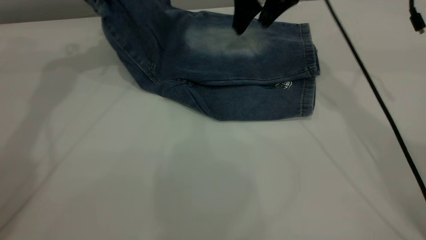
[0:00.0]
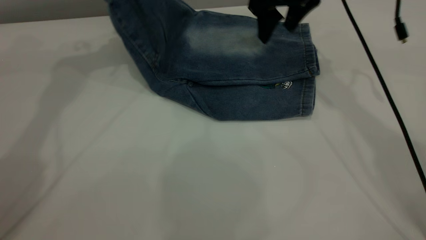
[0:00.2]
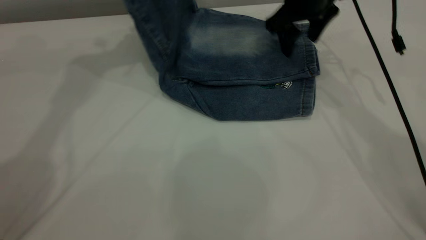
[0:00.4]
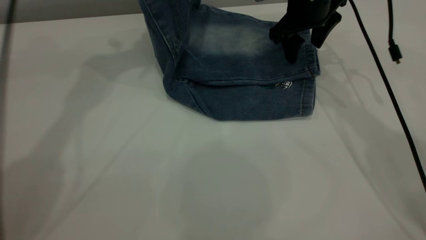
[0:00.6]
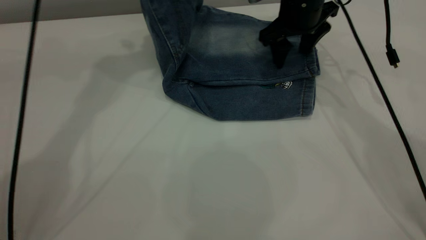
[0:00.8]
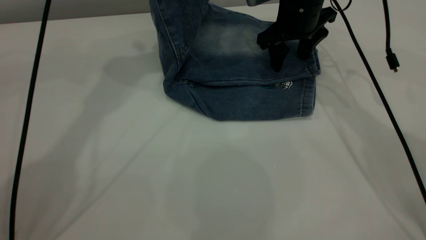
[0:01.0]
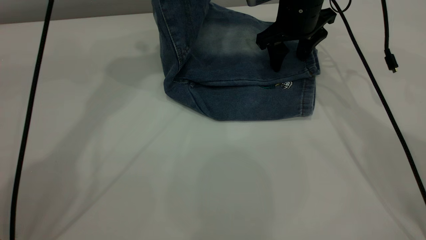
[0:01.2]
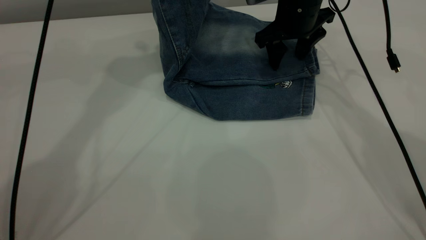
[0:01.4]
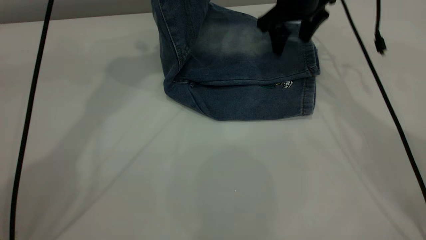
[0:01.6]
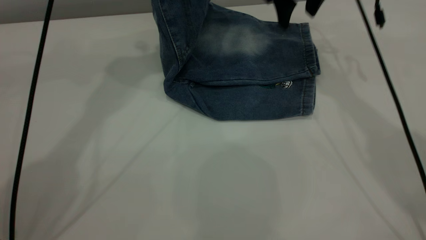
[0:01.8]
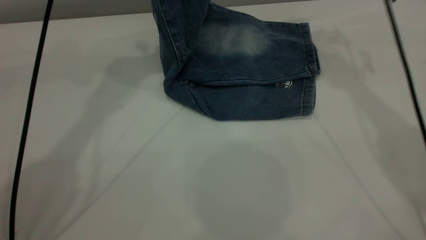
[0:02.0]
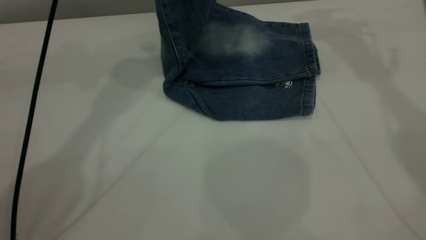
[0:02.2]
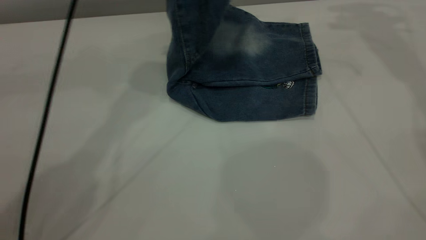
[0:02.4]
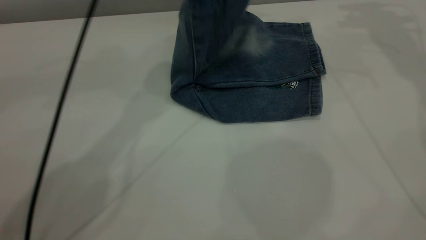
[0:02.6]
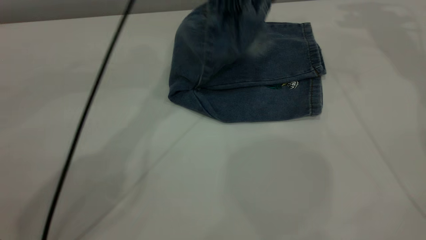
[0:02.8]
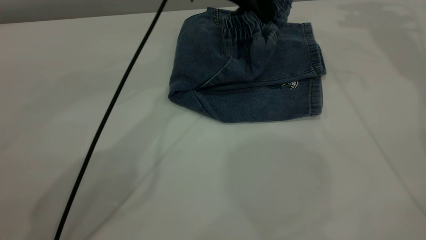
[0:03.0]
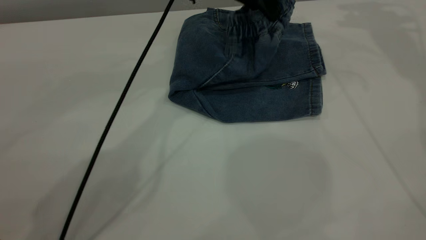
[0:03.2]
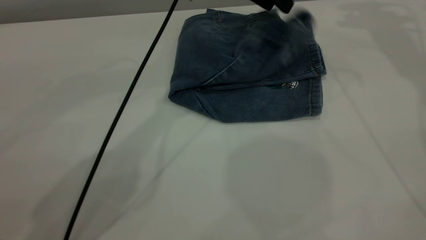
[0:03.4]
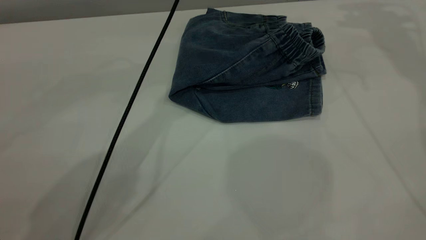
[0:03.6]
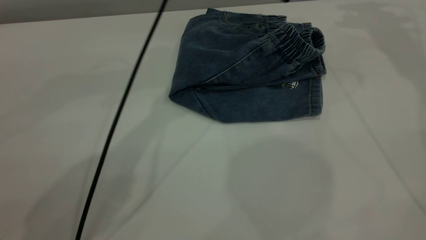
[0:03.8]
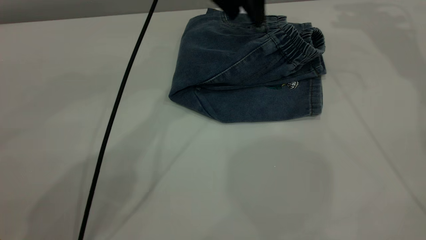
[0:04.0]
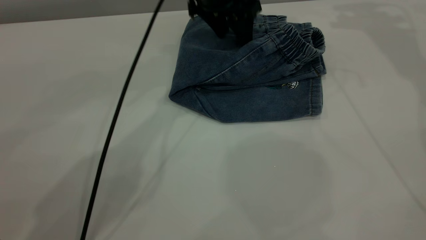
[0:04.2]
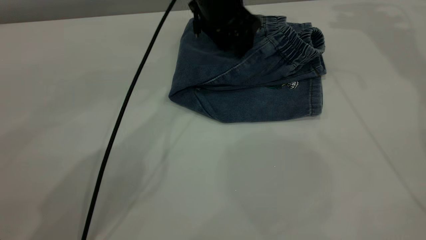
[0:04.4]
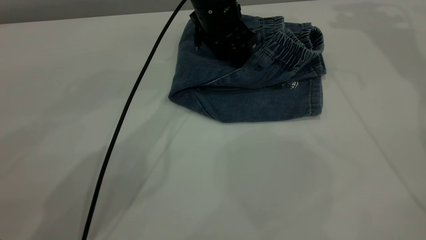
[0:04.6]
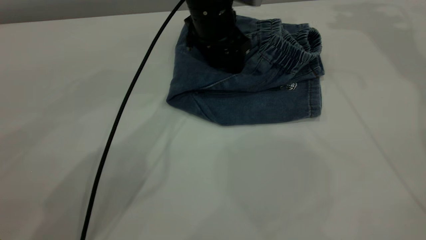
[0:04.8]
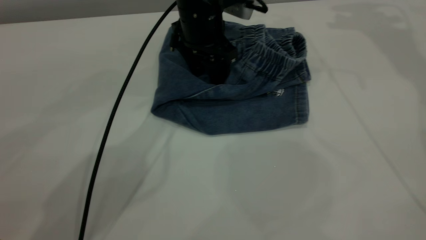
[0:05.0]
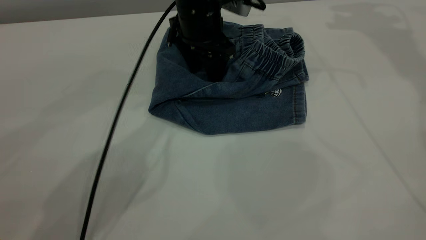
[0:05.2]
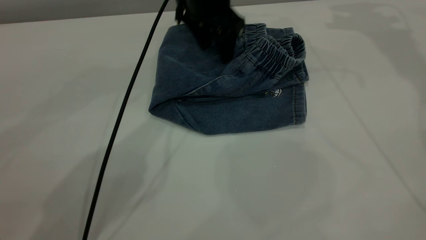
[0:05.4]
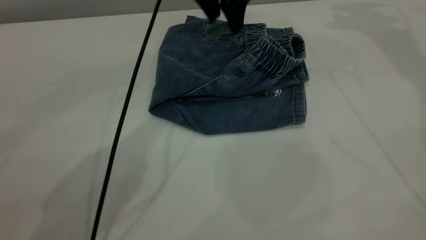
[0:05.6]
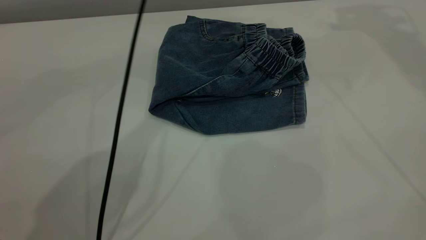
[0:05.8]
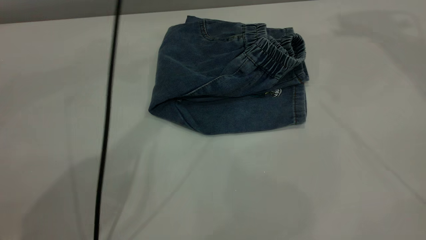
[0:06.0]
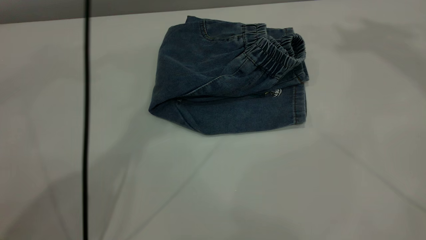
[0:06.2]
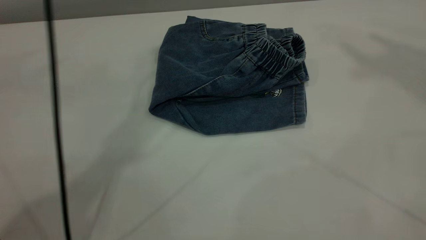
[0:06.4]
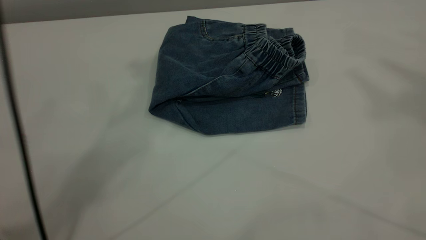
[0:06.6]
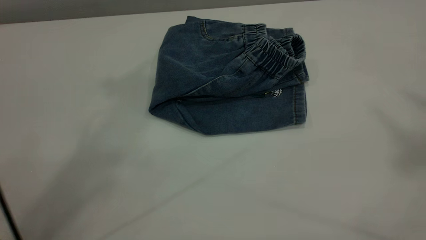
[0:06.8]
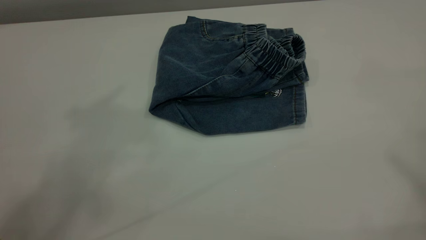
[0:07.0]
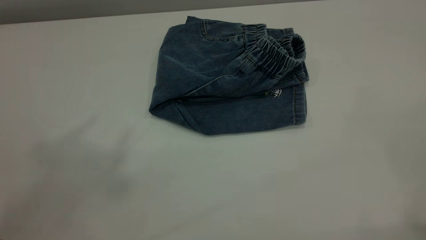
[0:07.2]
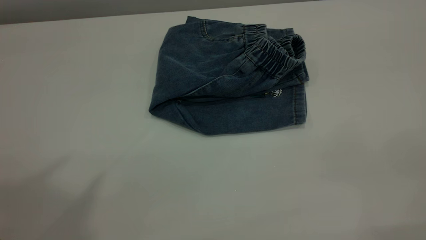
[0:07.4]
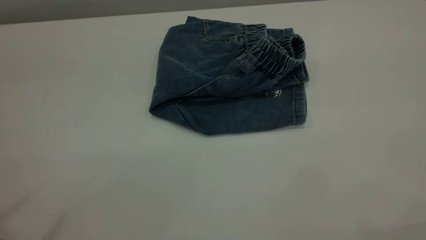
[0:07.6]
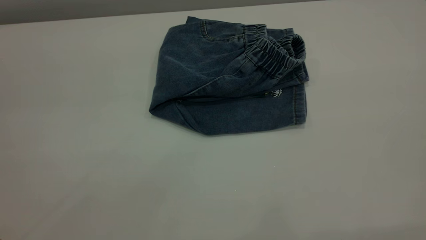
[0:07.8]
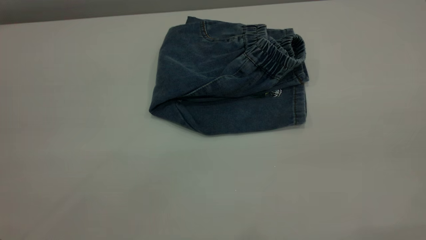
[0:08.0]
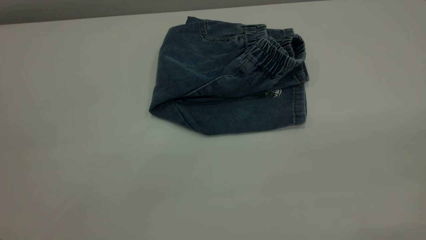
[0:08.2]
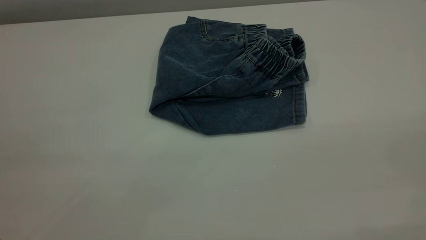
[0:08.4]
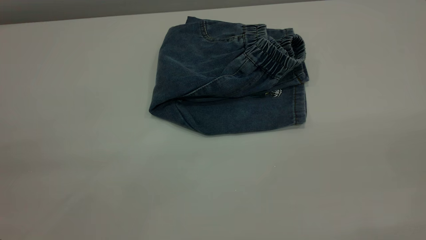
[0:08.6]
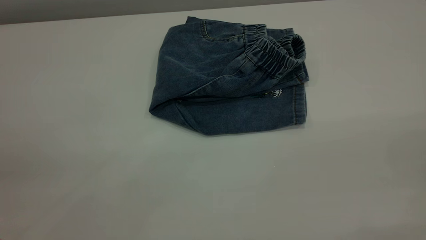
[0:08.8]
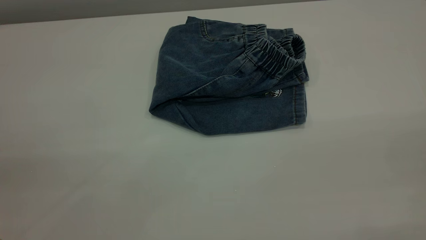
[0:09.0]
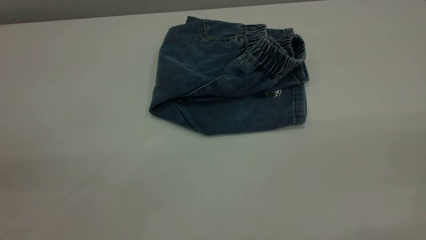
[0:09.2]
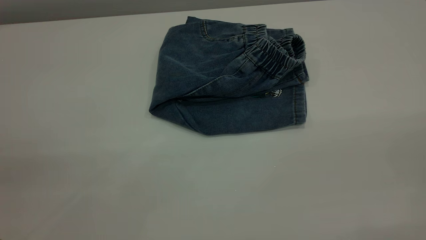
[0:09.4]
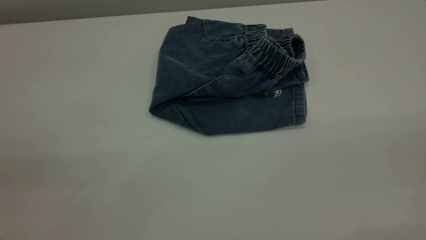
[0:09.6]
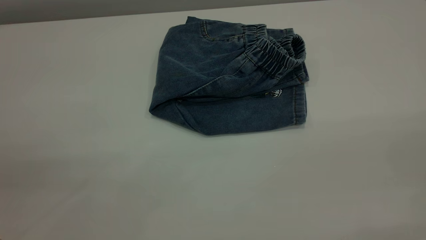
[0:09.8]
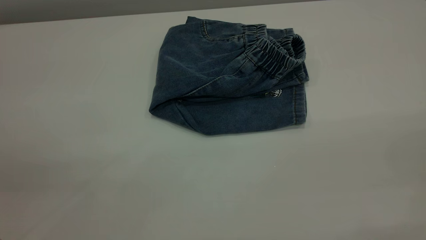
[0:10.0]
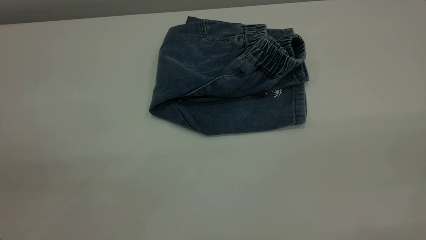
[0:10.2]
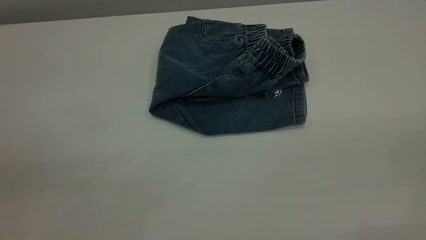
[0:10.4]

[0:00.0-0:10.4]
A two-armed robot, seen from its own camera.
Step, 0:00.0 to 0:03.6: Fold the pants from left to right.
0:00.0 to 0:01.4: The right gripper travels downward by approximately 5 cm. The left gripper travels to the right by approximately 10 cm.
0:01.4 to 0:03.0: The right gripper shifts some 25 cm upward and to the right; the left gripper goes about 15 cm downward and to the right.
0:03.0 to 0:04.4: The left gripper travels downward by roughly 5 cm, and opens its fingers.
0:04.4 to 0:06.0: The right gripper shifts about 15 cm upward and backward; the left gripper heads upward, covering roughly 20 cm.
0:06.0 to 0:07.4: The left gripper travels backward, upward and to the left by approximately 40 cm.

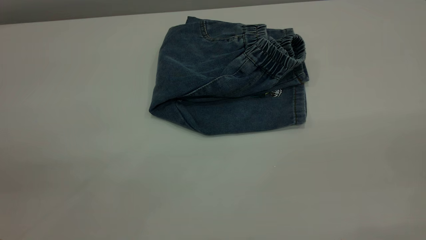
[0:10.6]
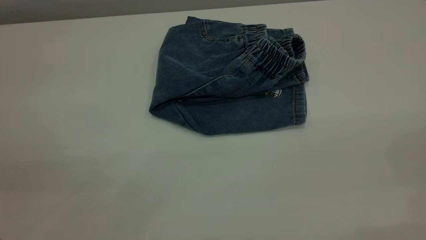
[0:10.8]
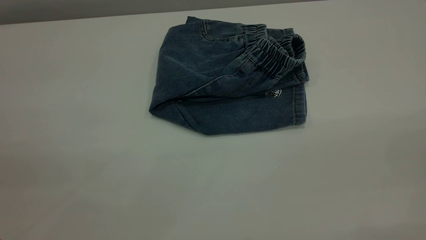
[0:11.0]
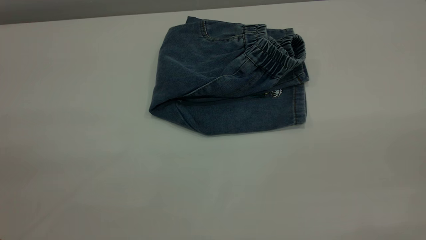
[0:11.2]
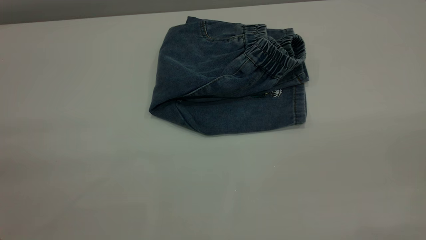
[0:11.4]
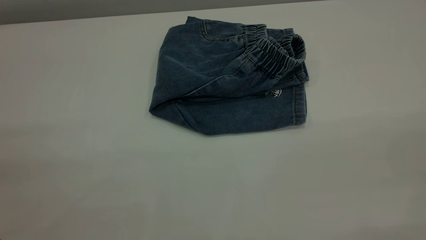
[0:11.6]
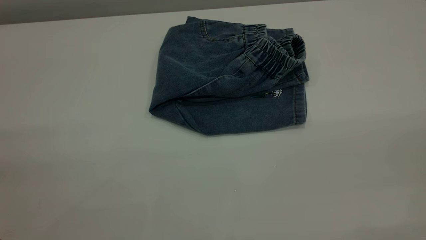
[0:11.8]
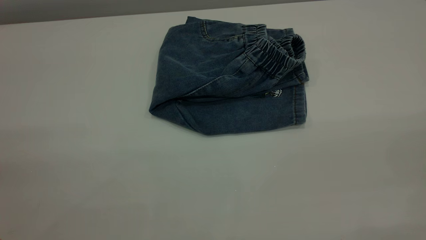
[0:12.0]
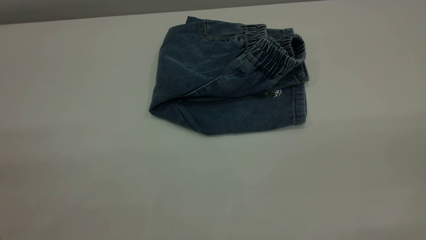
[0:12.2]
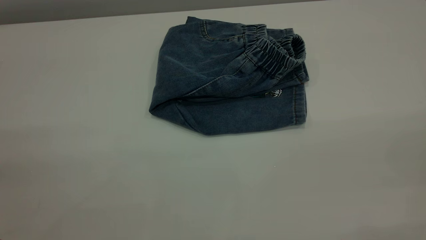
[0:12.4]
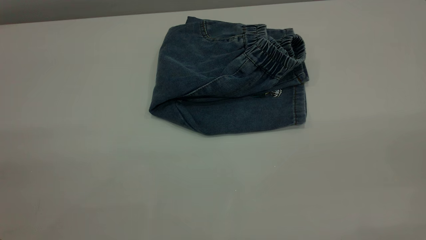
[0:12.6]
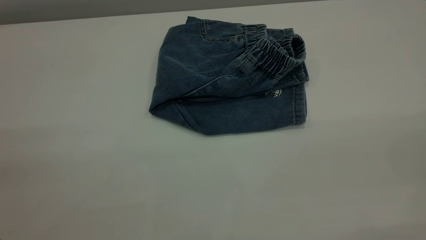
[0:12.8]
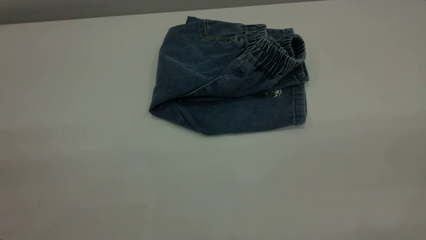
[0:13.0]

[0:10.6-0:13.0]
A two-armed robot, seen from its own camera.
0:11.8 to 0:13.0: The two grippers keep their place.
